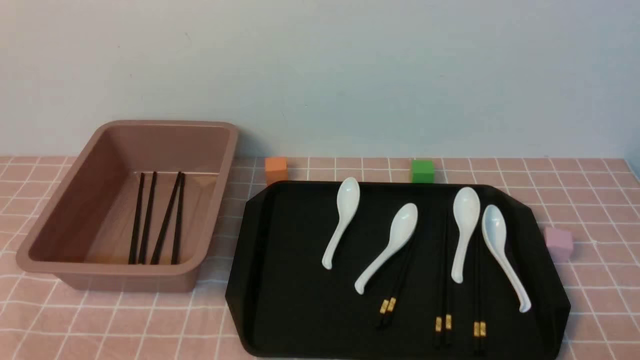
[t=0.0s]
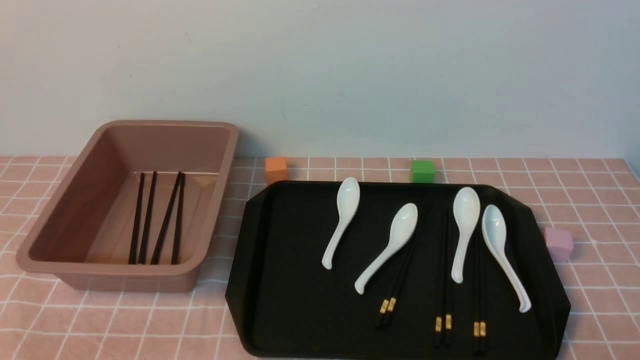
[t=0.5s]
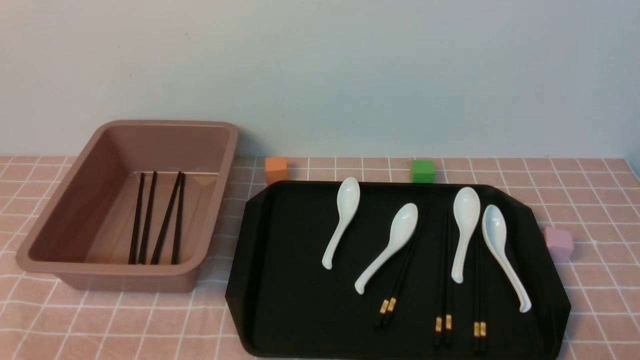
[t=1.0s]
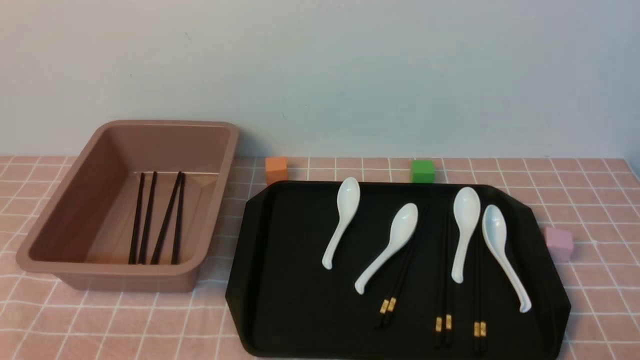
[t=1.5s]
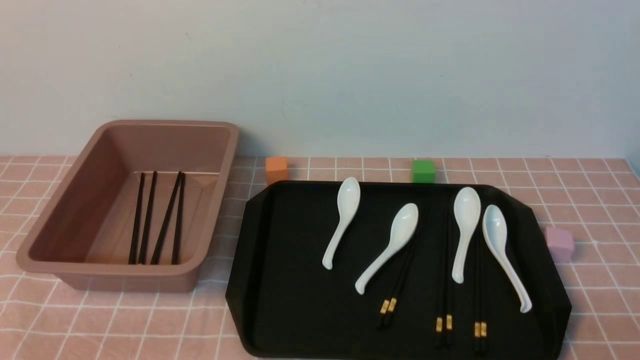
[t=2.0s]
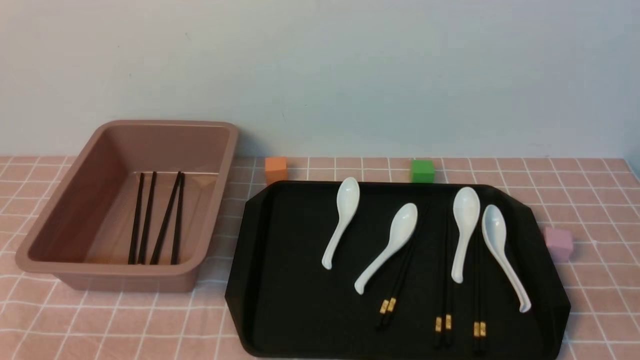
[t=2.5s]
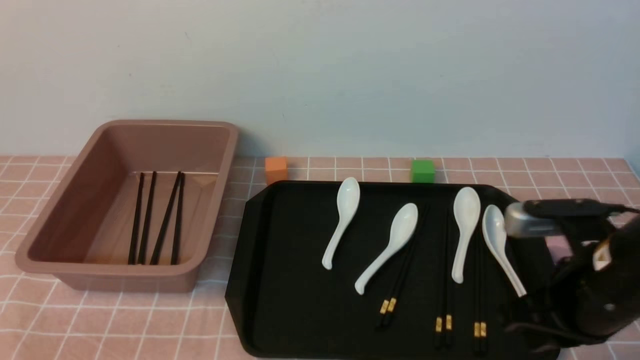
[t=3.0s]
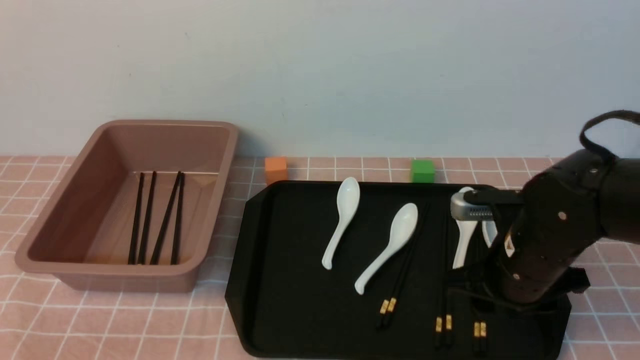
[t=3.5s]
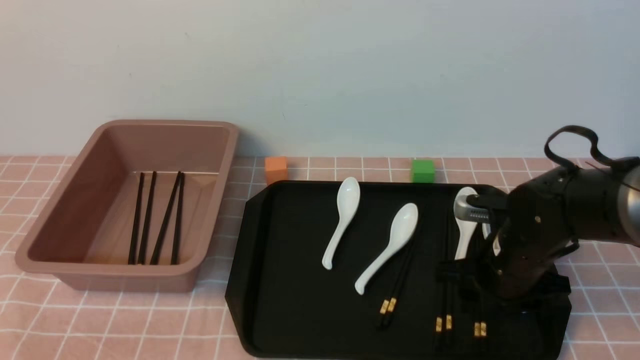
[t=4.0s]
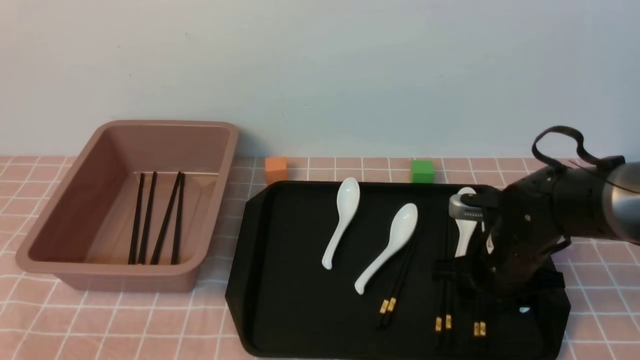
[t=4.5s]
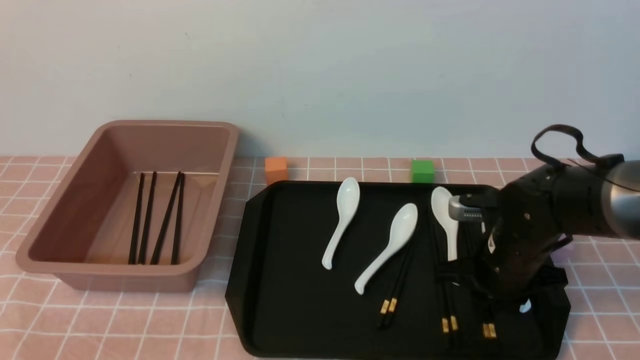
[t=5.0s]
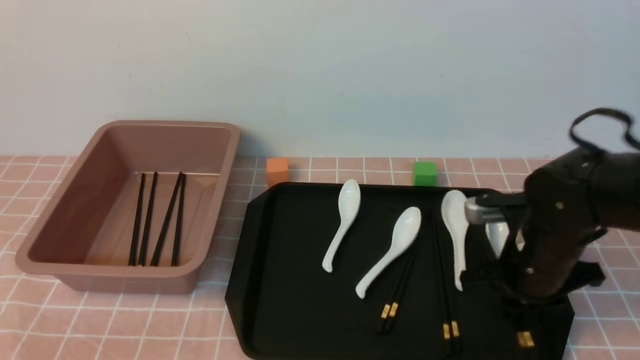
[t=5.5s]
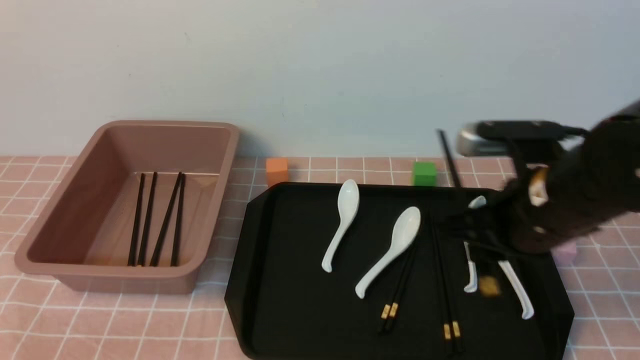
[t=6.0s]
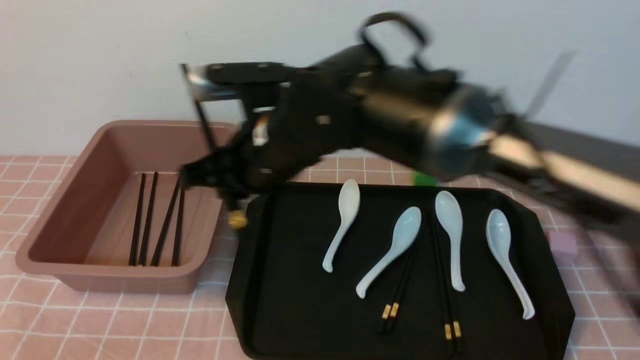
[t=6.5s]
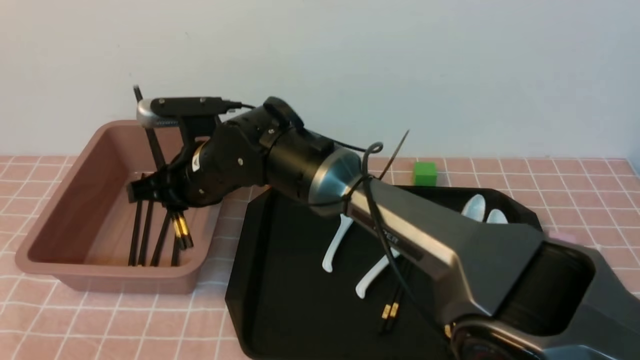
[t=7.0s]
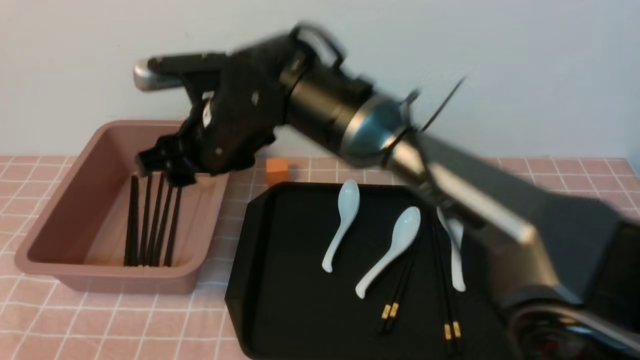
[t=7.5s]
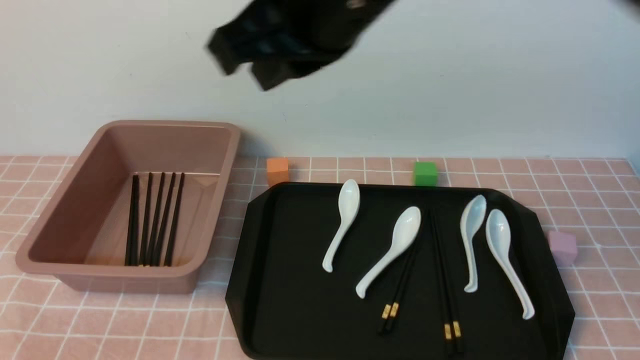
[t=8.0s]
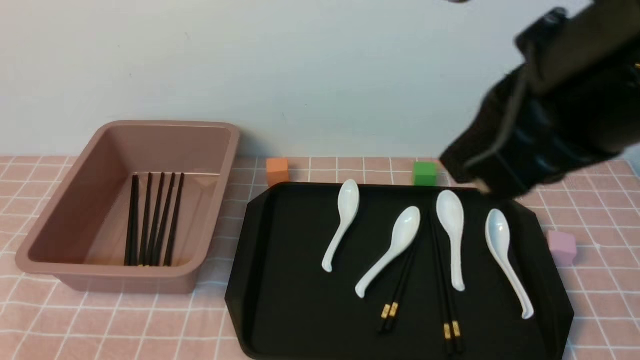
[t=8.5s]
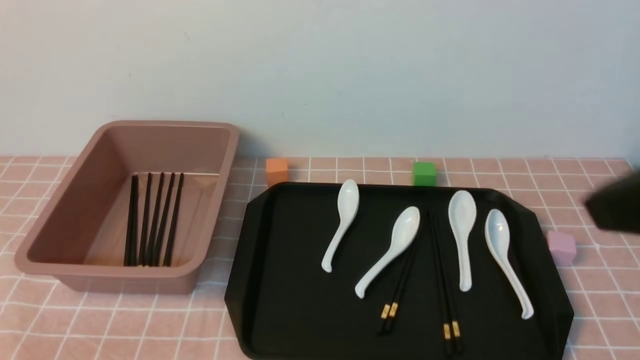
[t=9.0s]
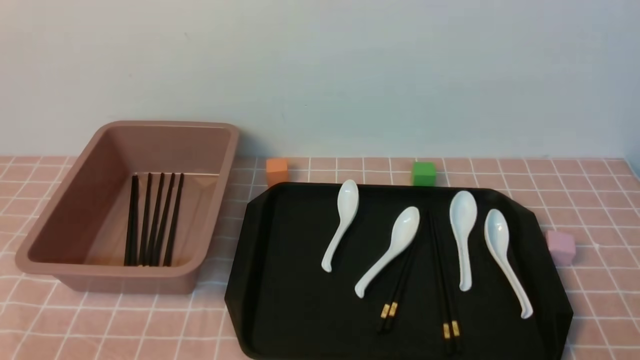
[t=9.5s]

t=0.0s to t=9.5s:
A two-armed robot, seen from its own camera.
Step, t=0.0s to t=5.5s: use the right arm to grab a pair of chopsticks.
Step, t=6.0s to t=7.5s: use the right arm to put the chopsticks into the lunch box.
t=2.0s to t=4.0s: The right gripper is displaced forward by about 25 cm, and opens up.
t=4.0s to t=5.5s: The right gripper closes up.
t=5.5s to t=7.5s: The right gripper moves to the left and upward, roughly 30 cm, and opens its fingers.
t=7.5s to t=9.5s: The right gripper goes some 50 cm to the right and backward, and closes up.

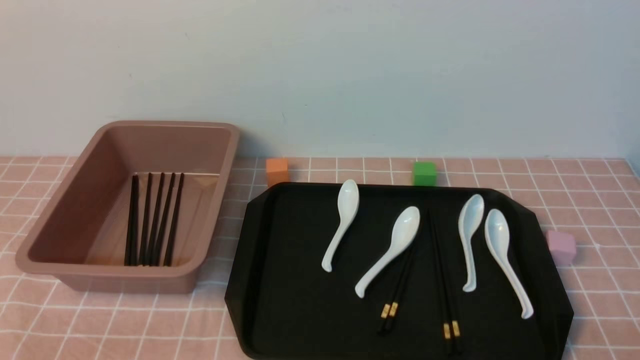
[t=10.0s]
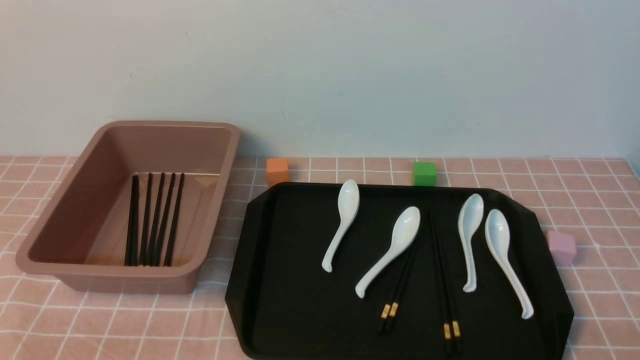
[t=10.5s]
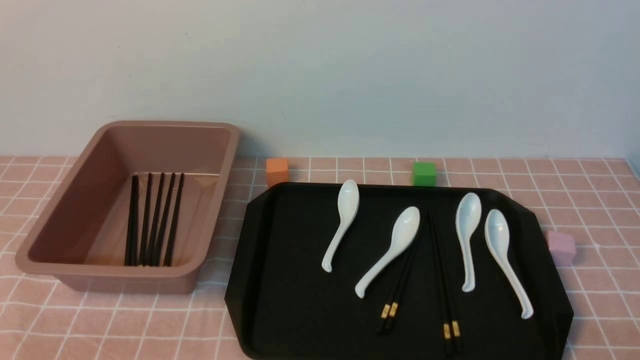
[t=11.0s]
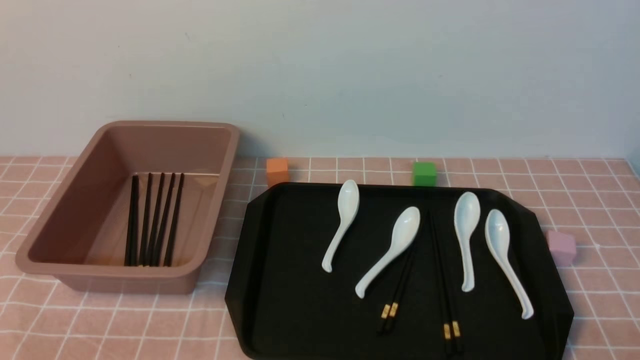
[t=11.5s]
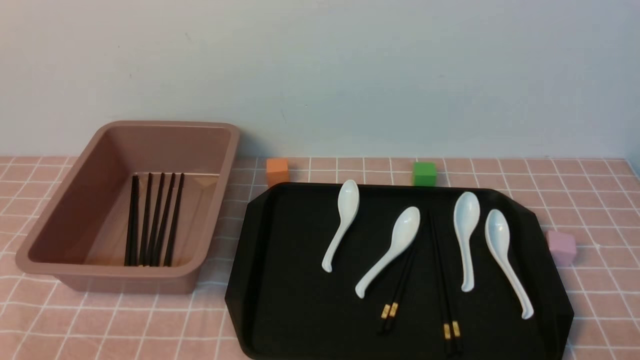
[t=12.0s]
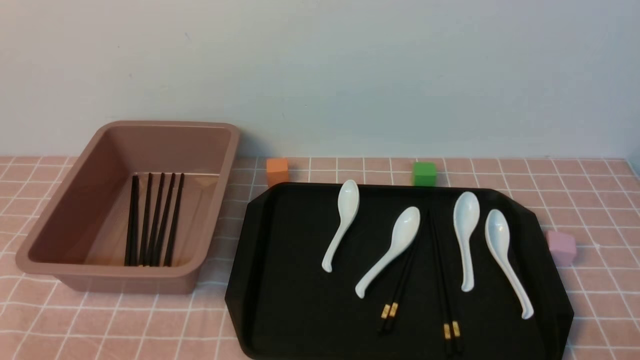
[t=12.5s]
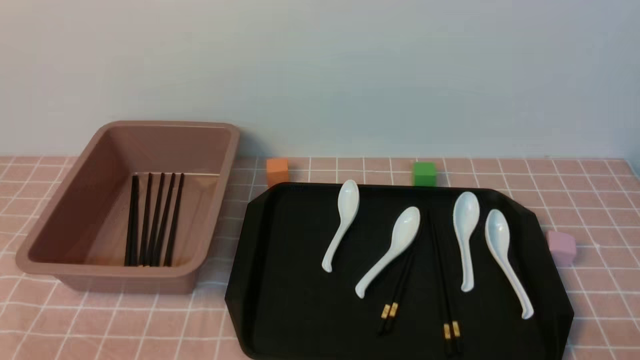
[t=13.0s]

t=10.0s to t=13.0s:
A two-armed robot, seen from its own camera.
t=10.0s to t=13.0s: Both grippers stay put.
